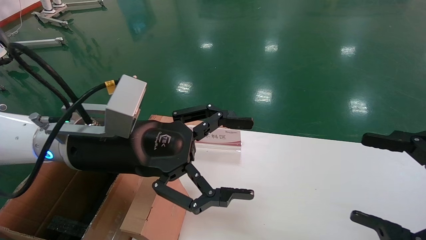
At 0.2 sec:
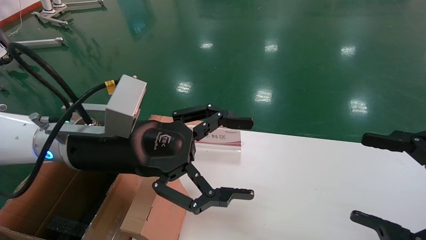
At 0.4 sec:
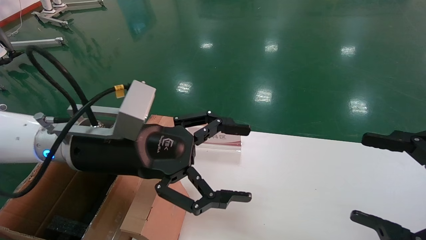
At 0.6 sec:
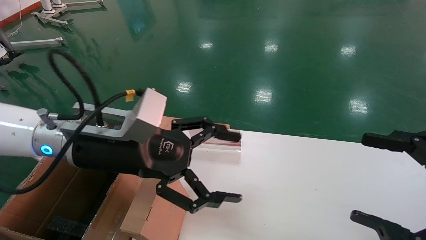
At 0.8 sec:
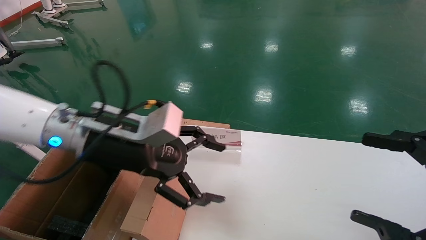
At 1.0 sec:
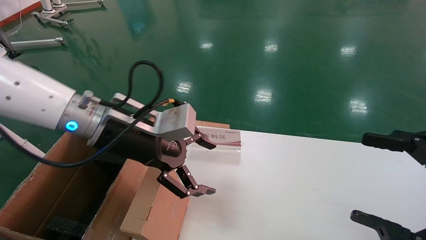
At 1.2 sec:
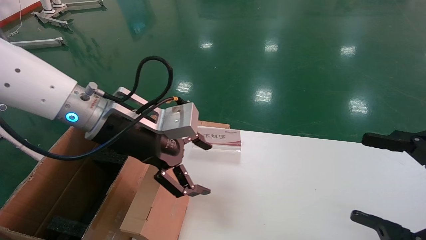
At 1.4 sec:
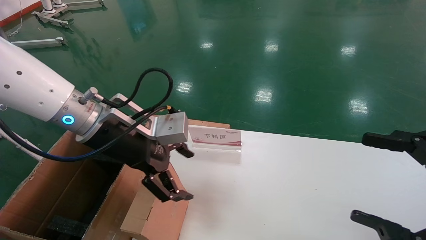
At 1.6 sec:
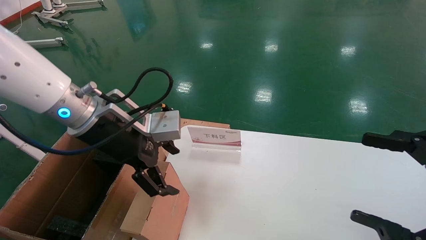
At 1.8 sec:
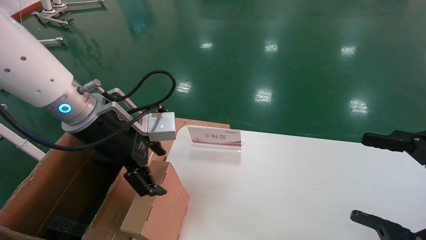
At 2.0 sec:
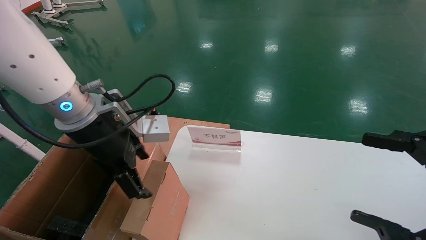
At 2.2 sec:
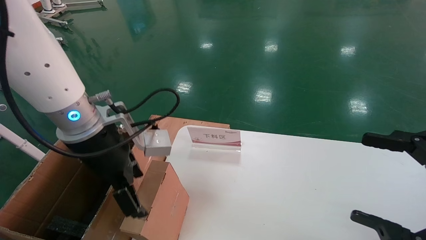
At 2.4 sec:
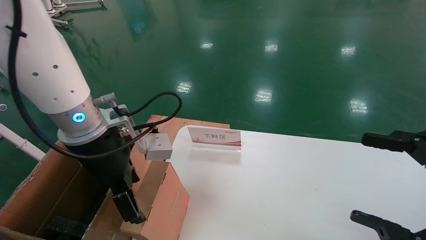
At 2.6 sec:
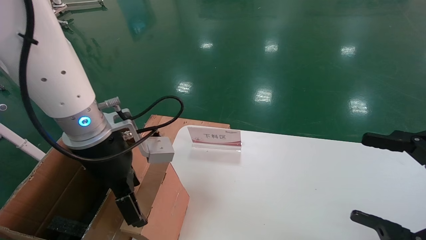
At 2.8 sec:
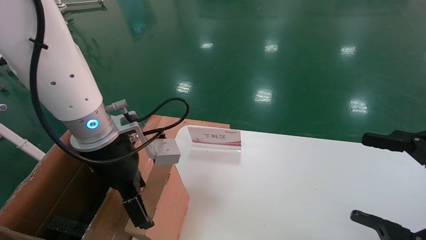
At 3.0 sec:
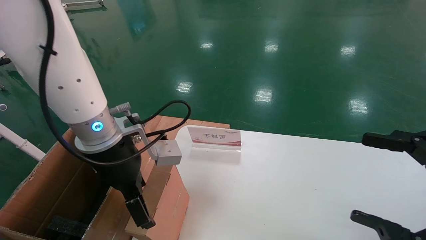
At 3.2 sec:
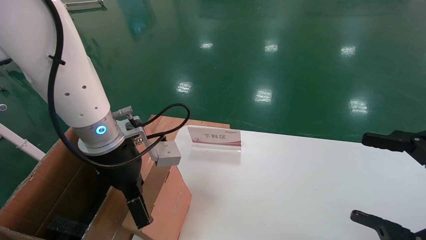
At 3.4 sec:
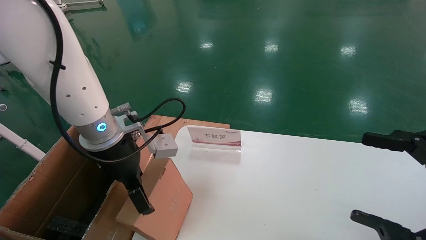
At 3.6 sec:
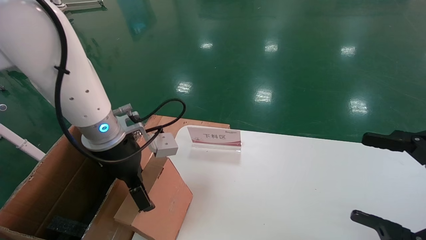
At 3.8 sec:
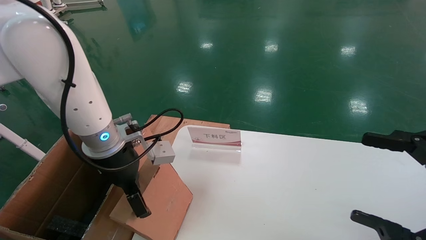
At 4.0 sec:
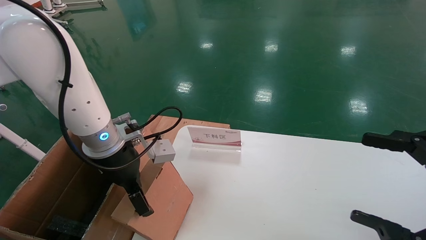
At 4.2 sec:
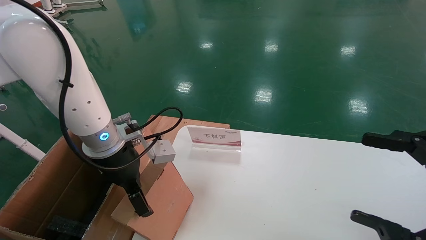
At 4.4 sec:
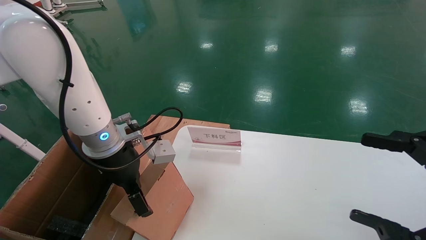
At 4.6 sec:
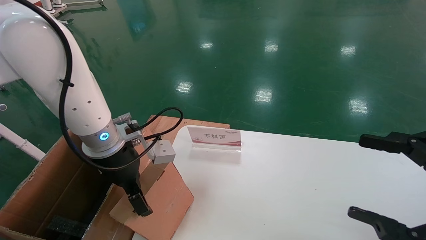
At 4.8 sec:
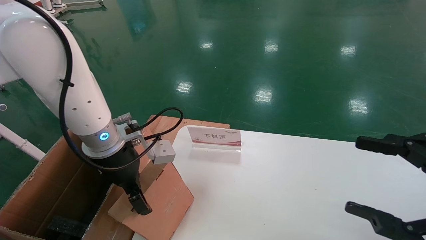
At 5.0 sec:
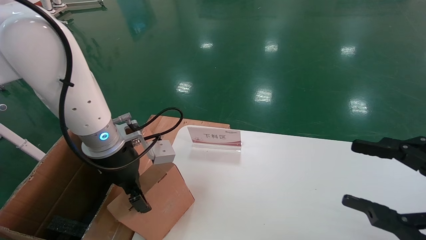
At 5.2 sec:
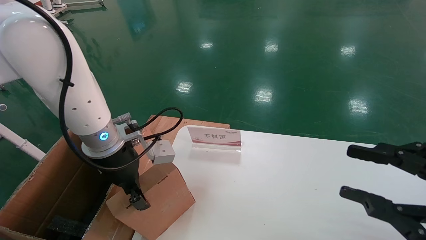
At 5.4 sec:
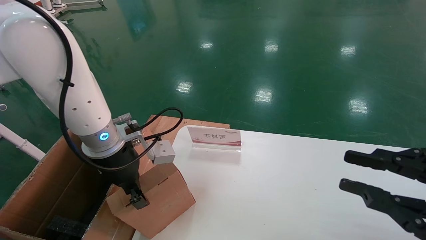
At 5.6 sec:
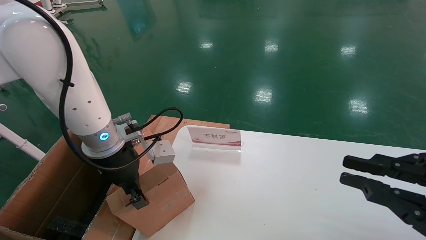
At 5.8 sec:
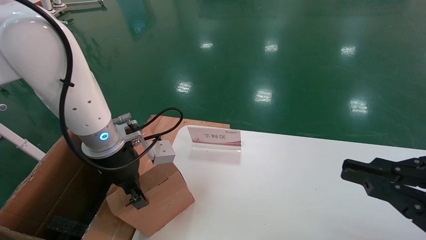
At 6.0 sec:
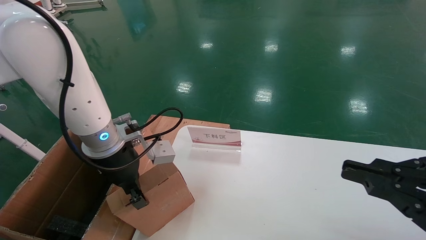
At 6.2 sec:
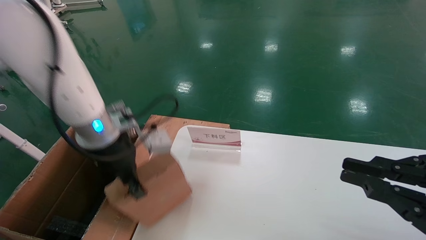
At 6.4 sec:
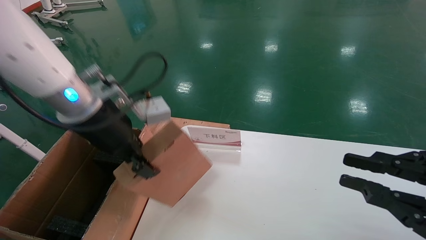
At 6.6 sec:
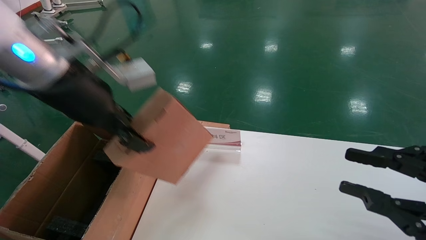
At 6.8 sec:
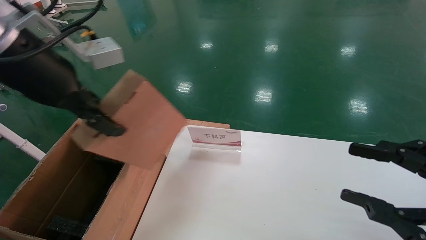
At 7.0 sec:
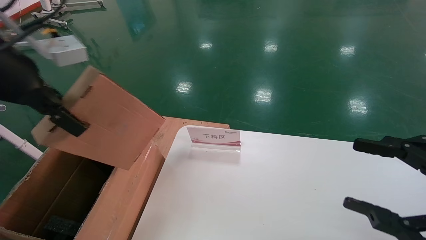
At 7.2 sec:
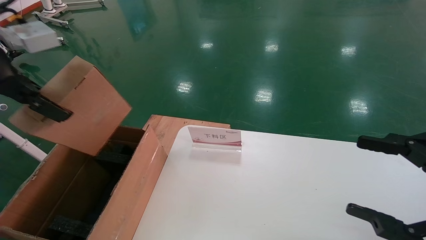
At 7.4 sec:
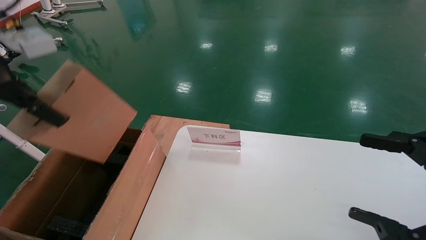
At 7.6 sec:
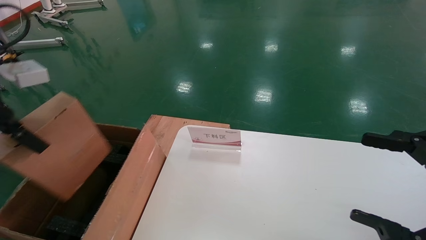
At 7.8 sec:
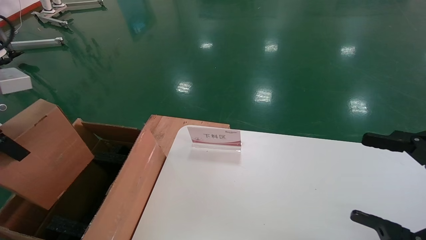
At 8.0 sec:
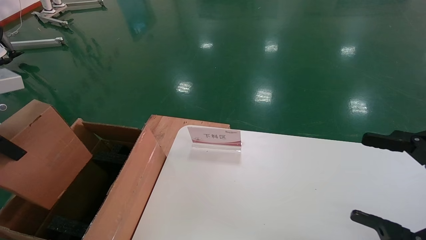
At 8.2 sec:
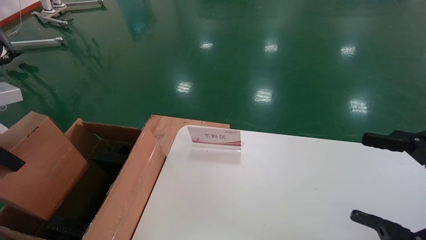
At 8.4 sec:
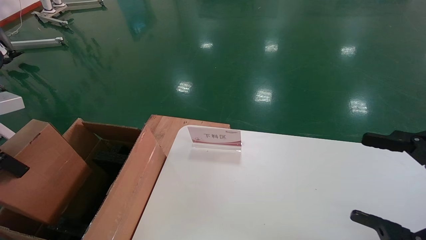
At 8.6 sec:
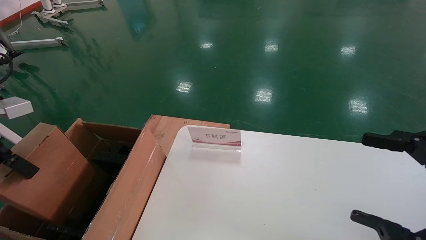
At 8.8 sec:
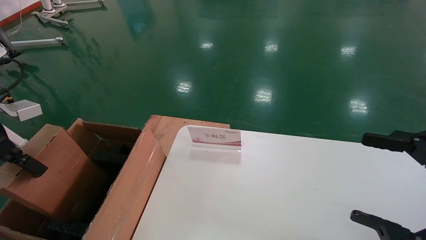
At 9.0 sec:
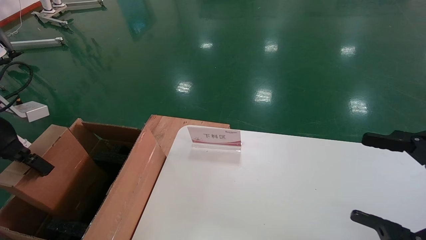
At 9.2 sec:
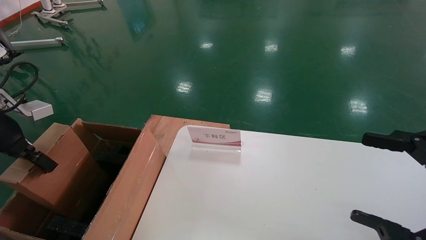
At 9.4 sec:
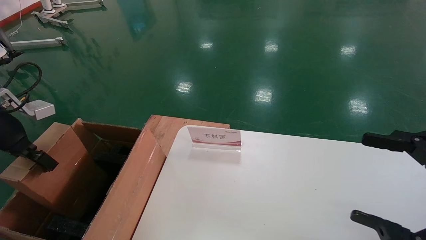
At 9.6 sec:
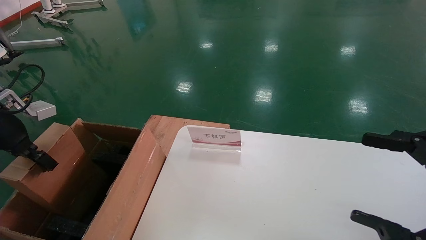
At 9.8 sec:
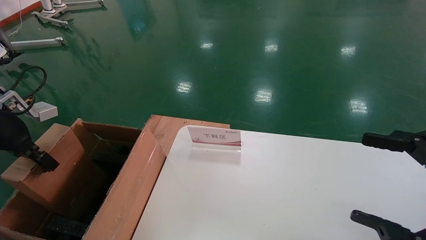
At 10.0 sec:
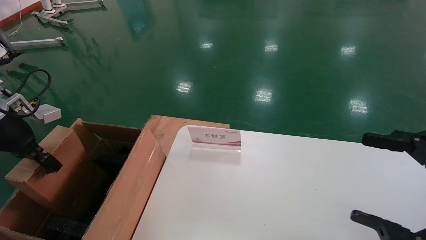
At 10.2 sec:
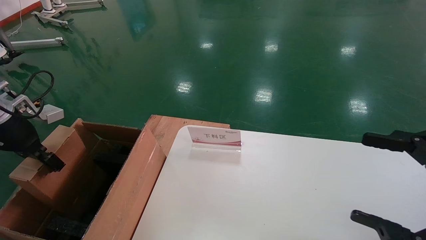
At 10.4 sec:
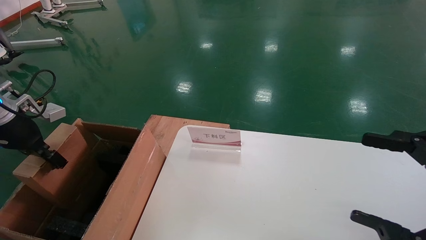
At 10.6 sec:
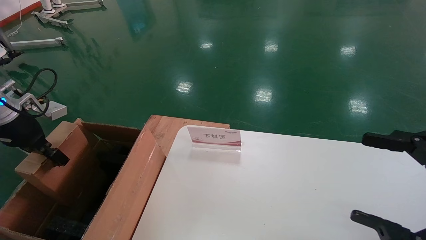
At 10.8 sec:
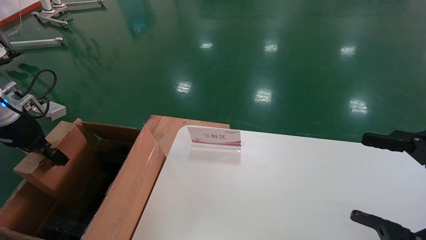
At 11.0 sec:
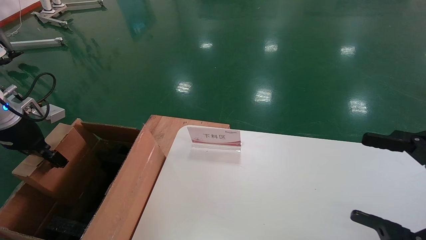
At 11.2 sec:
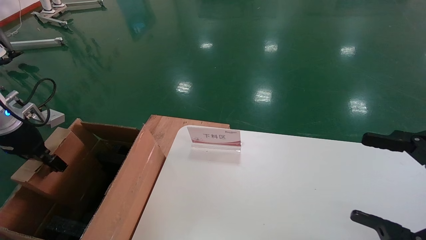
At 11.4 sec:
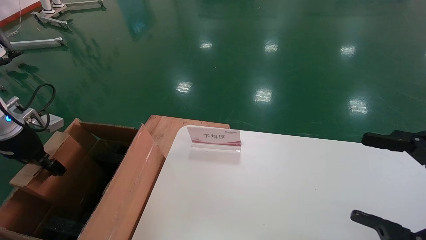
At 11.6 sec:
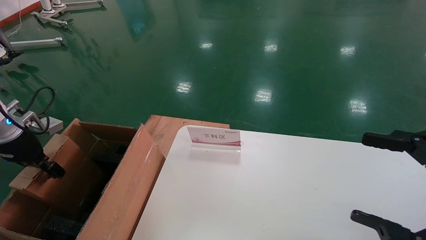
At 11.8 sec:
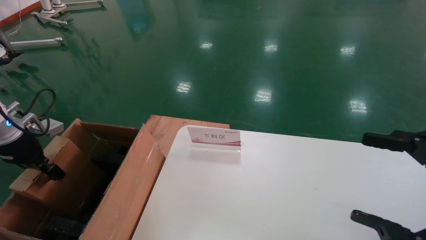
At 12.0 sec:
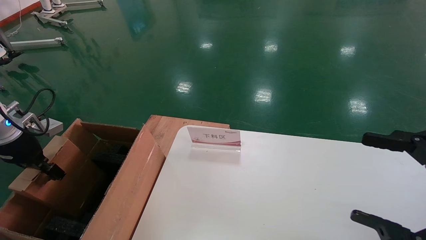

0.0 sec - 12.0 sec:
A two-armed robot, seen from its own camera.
Task of the whole recording: pick up the small cardboard box and load it into the large cardboard box.
Step, 1.0 sec - 5.0 sec: Pick up the mouse and power cord box.
0.0 sec - 1.6 sec: The left gripper changes place by roughly 5 cm.
3.0 sec - 4.4 sec: The grippers stay close to where they were, moving slightly.
4.4 sec - 6.0 sec: The left gripper closes. The right gripper closes its fingers.
6.0 sec - 7.6 sec: The left gripper shifts some 25 cm to the left, upward and backward. The right gripper opens up.
7.6 sec - 9.0 sec: The left gripper goes some 10 cm downward and to the left.
9.0 sec - 10.4 sec: The left gripper is displaced forward by approximately 5 cm.
10.4 sec - 12.0 sec: The left gripper is displaced downward by approximately 5 cm.

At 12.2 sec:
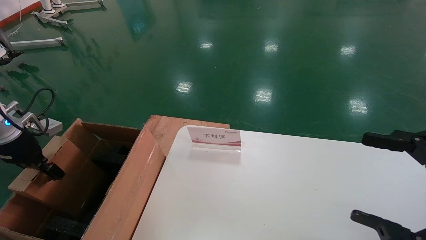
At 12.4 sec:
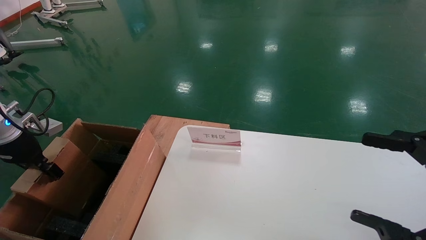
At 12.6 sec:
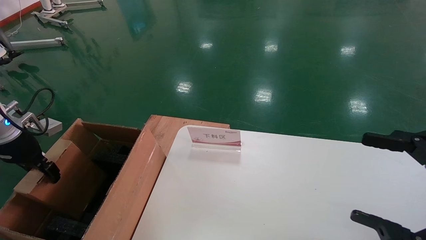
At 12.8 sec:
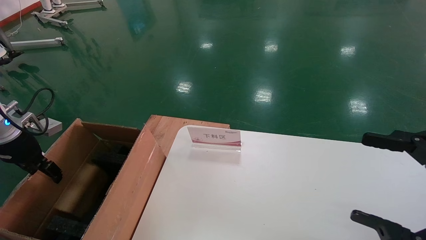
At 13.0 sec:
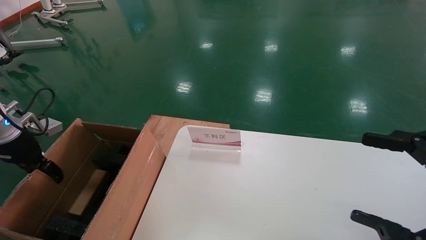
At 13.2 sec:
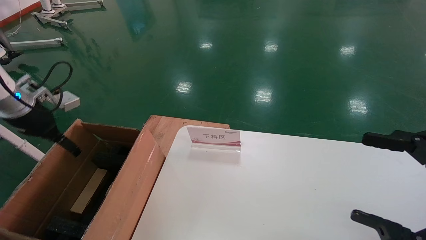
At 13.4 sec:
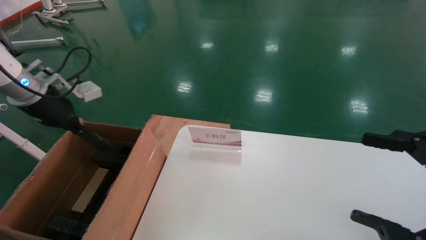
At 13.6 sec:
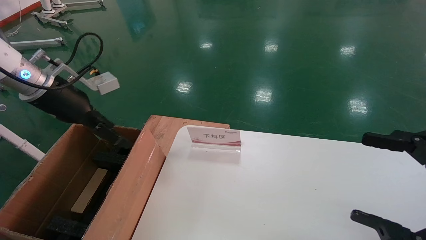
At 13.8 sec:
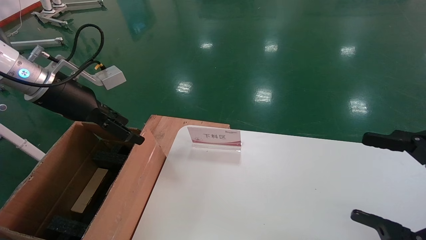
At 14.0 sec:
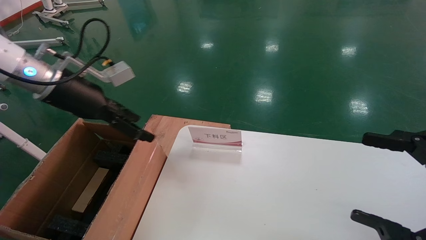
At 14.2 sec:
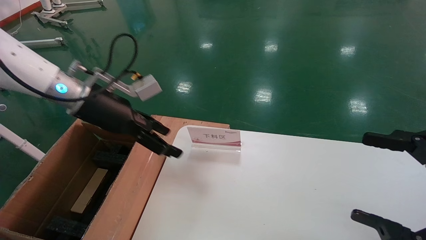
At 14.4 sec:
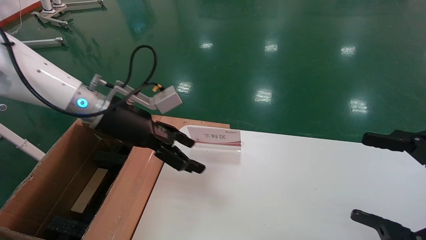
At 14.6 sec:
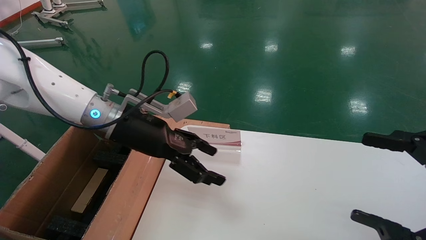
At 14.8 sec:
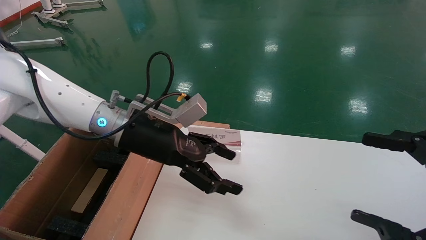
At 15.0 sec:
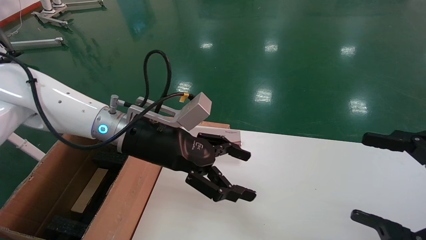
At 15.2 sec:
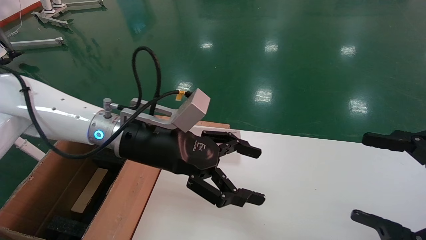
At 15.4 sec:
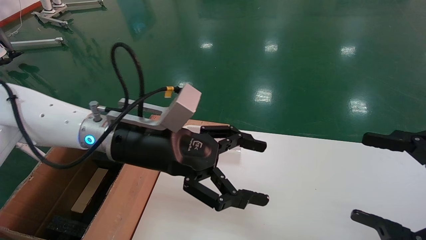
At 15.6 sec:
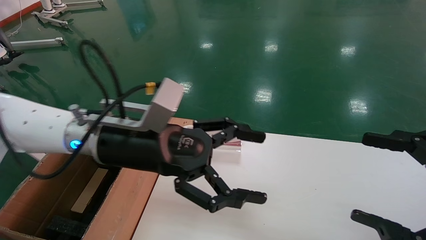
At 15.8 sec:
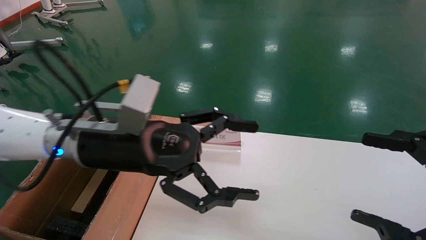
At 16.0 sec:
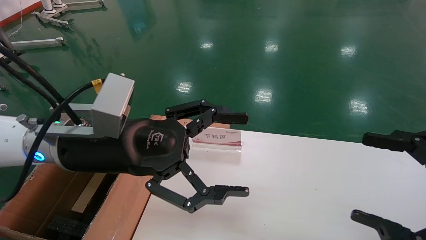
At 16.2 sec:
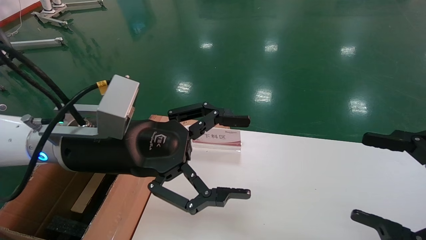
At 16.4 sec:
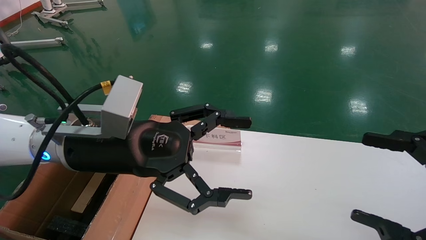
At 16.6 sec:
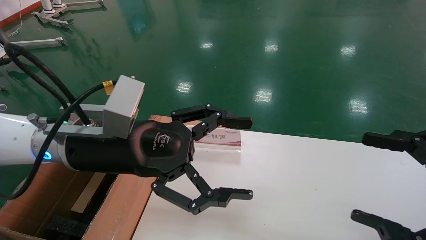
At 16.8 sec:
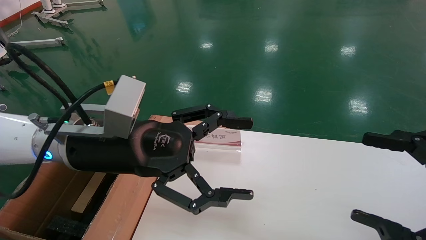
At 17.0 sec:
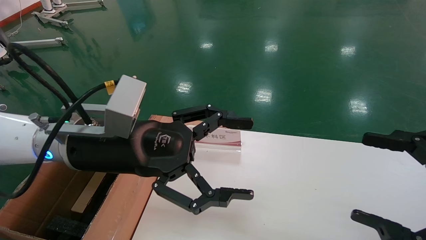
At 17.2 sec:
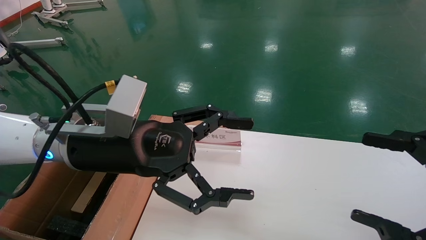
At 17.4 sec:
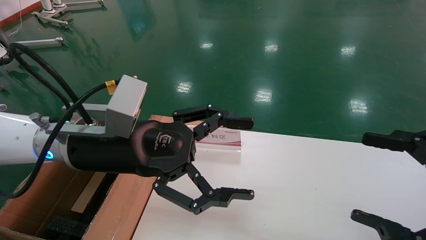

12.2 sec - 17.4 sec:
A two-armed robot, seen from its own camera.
Task of the whole recording: pick up the small cardboard box and load it into the large cardboard box.
12.2 sec - 14.0 sec: The left gripper shifts about 20 cm to the right and upward, and opens.
14.0 sec - 15.6 sec: The left gripper heads to the right and backward, covering some 15 cm.
15.6 sec - 17.4 sec: The grippers stay close to where they were, moving slightly.
